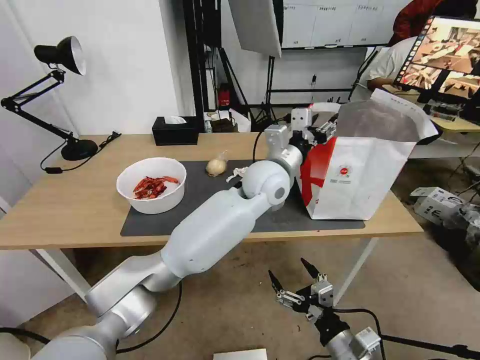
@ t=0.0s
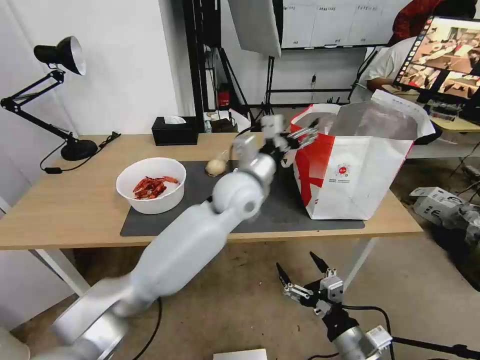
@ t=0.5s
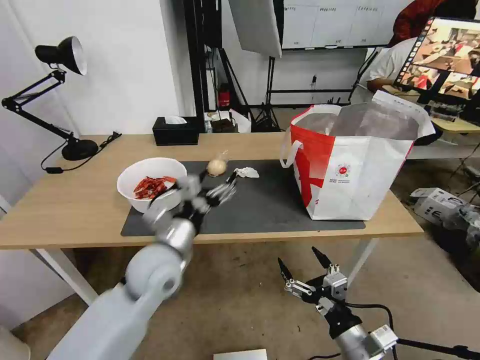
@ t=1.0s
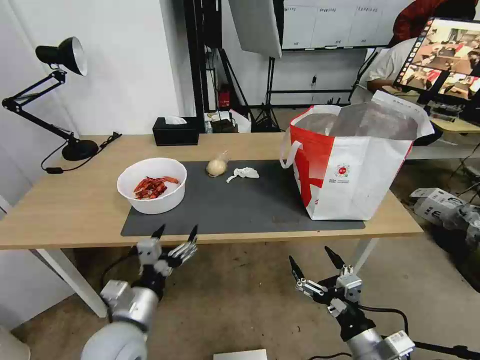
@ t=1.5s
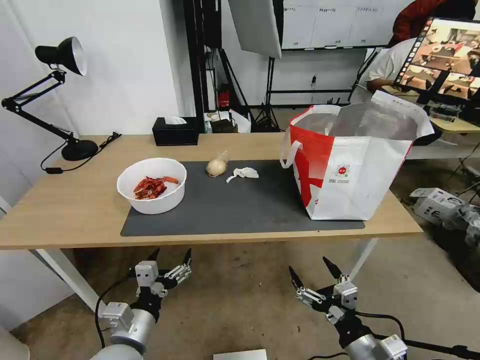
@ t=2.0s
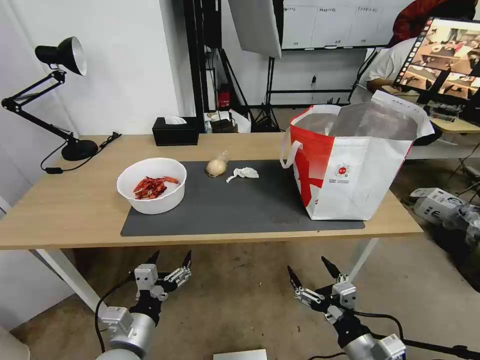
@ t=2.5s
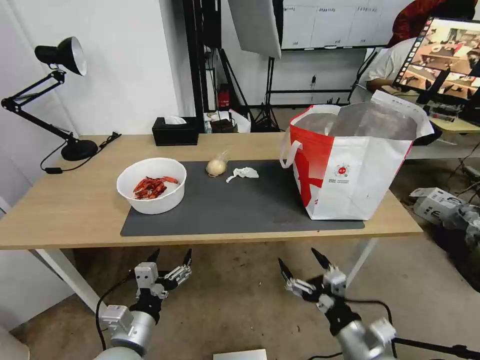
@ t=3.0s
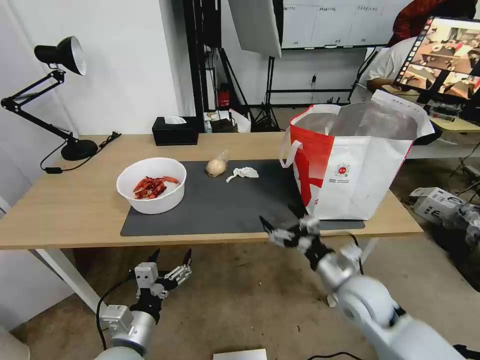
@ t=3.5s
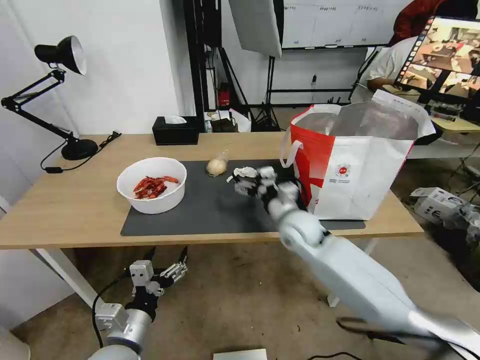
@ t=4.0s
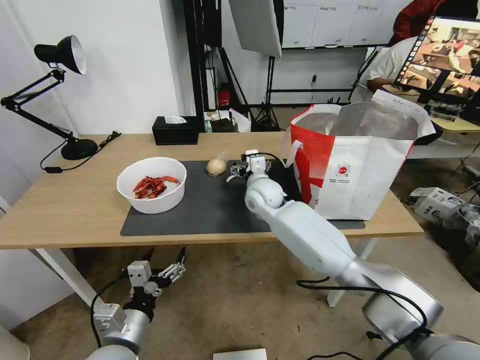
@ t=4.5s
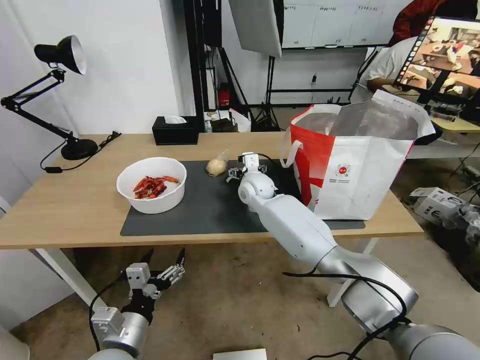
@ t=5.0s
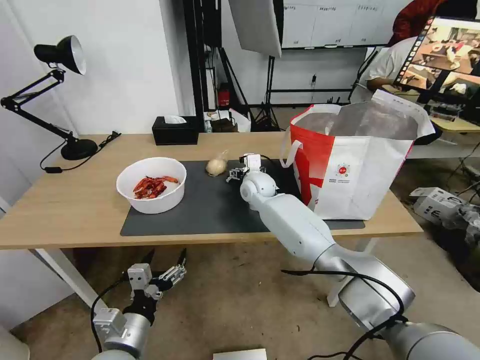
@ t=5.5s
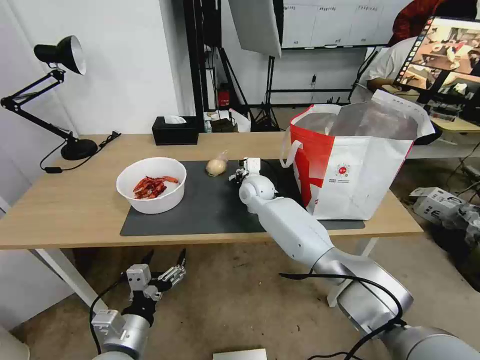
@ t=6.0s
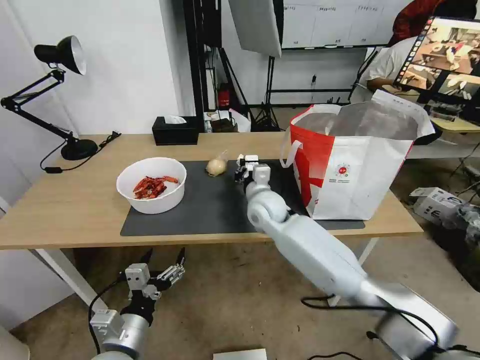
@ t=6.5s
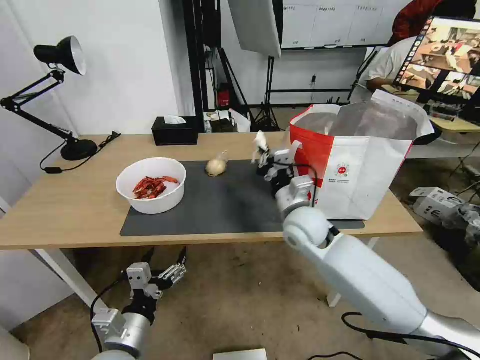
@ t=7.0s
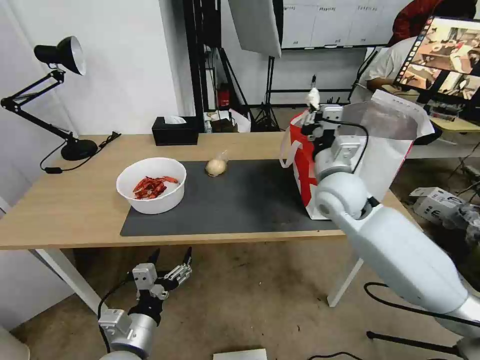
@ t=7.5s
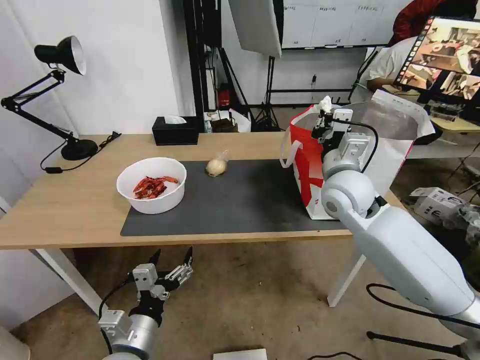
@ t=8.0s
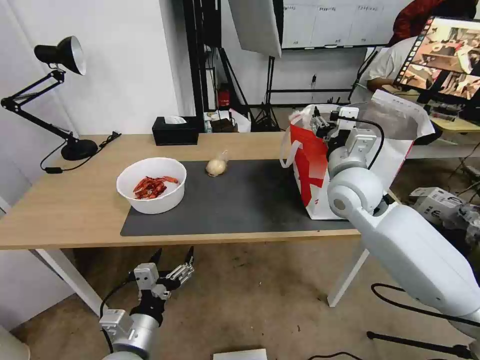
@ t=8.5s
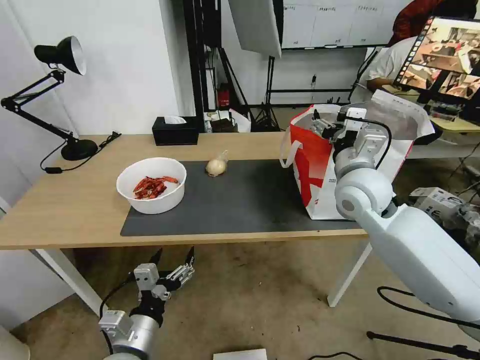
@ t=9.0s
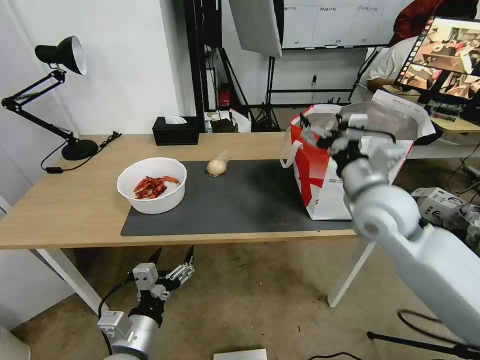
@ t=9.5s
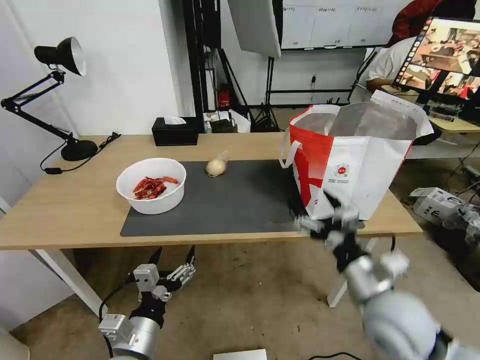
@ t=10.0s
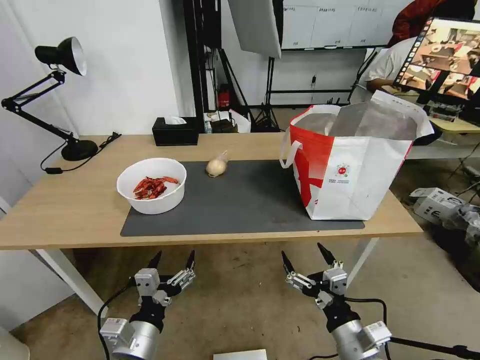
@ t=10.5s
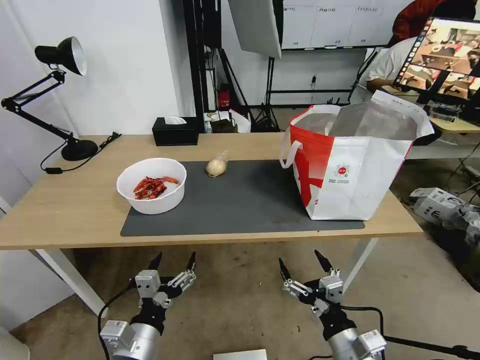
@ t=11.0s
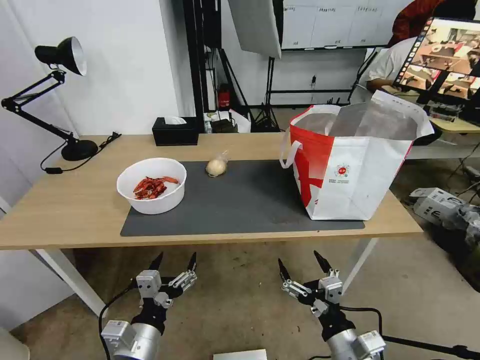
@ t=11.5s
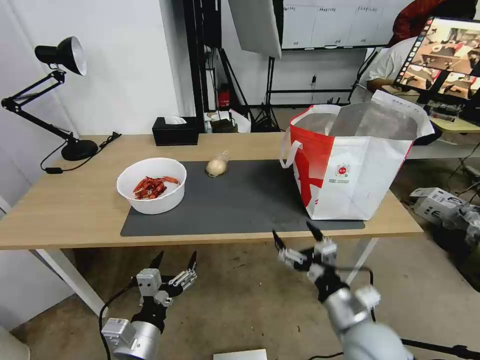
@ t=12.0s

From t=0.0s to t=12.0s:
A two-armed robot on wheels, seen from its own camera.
Task of the whole recording: Pick up the trash from the table and place it into the takeout bag.
From t=0.0s to t=2.0s: The left gripper heads backward, to the left and downward, covering approximately 40 cm, and opens.
From t=2.0s to t=4.0s: The right gripper is displaced forward and to the left by roughly 35 cm.
From t=4.0s to t=6.0s: The right gripper moves forward and to the left, approximately 15 cm, and closes up.
From t=6.0s to t=8.0s: The right gripper heads to the right, backward and upward, covering some 25 cm.
From t=8.0s to t=10.0s: The right gripper goes roughly 20 cm backward and downward, and opens its fingers.
From t=10.0s to t=12.0s: The right gripper goes about 10 cm downward.

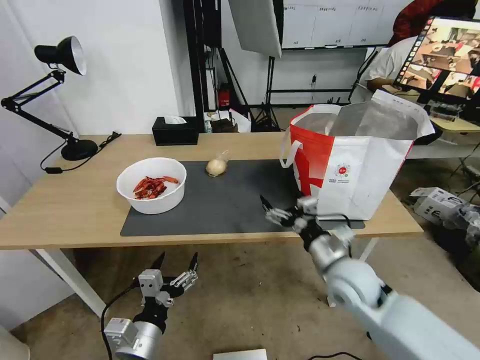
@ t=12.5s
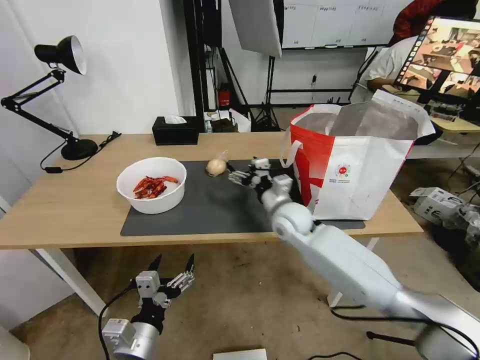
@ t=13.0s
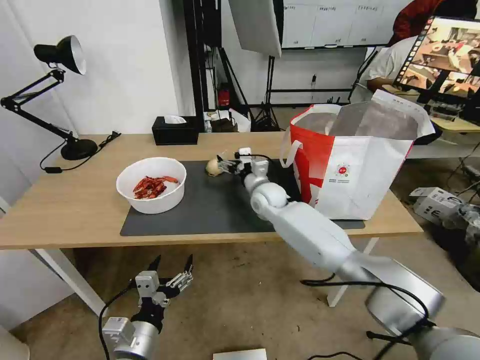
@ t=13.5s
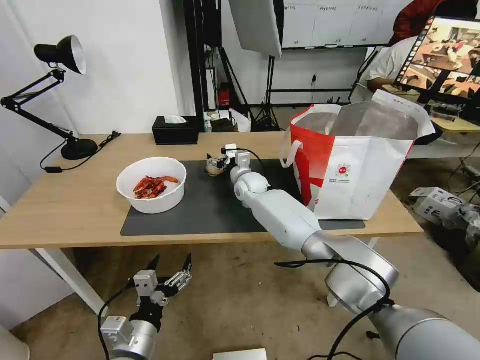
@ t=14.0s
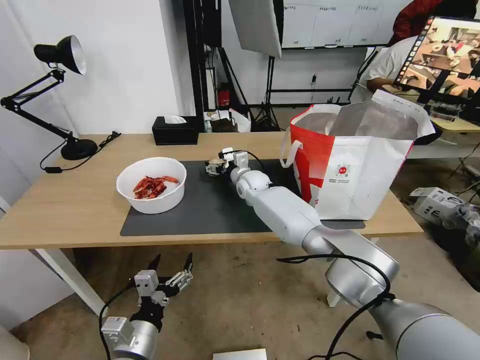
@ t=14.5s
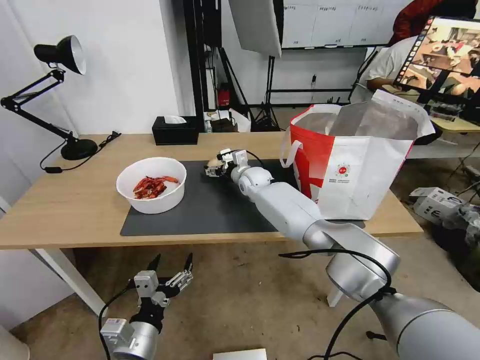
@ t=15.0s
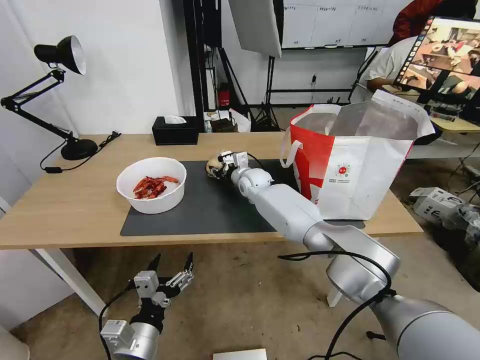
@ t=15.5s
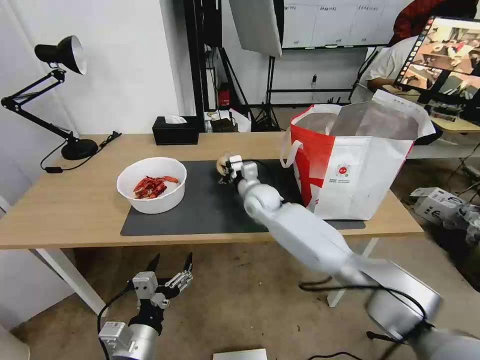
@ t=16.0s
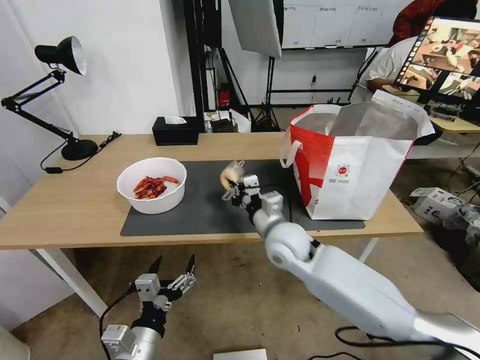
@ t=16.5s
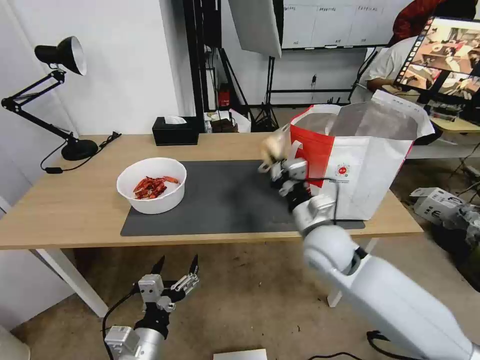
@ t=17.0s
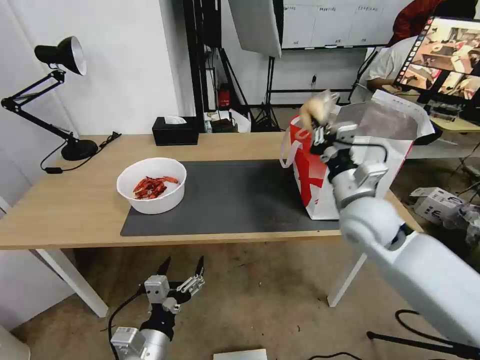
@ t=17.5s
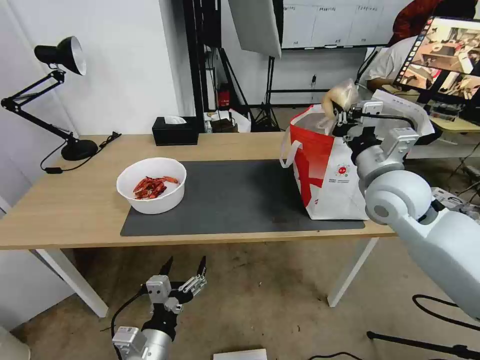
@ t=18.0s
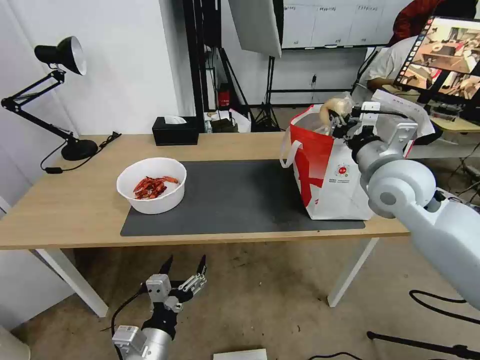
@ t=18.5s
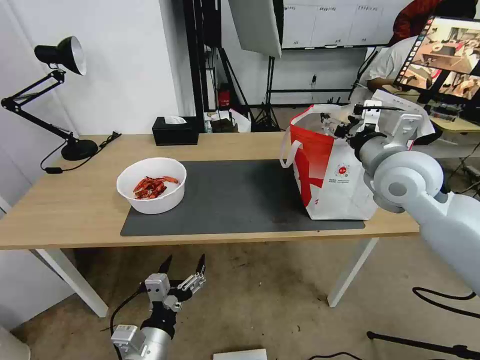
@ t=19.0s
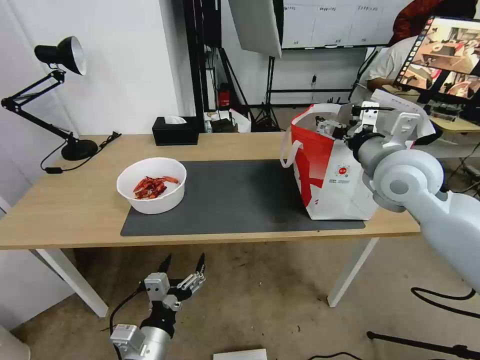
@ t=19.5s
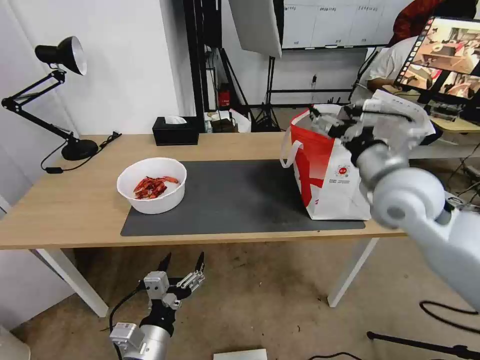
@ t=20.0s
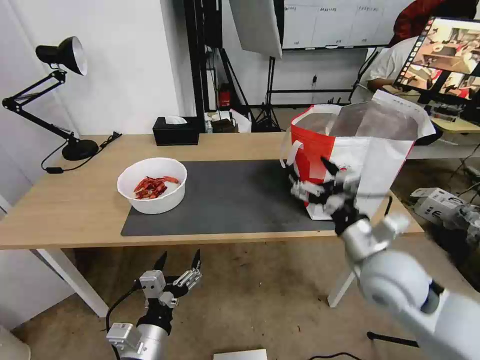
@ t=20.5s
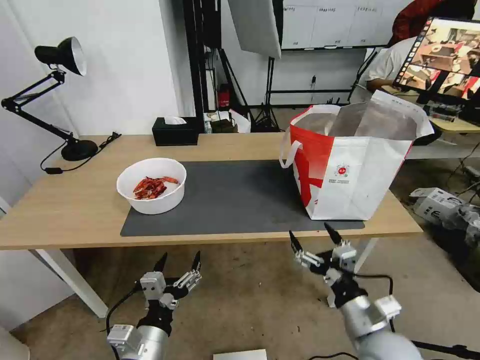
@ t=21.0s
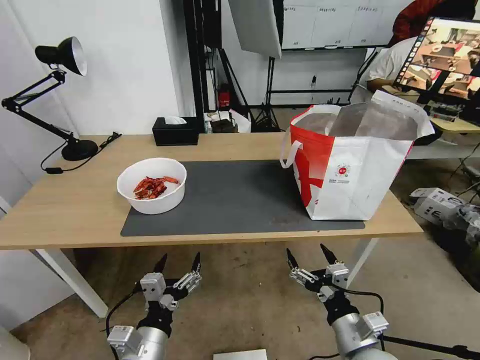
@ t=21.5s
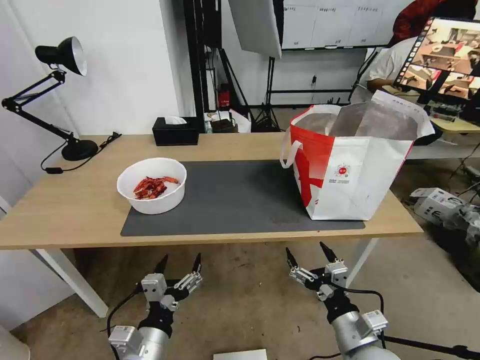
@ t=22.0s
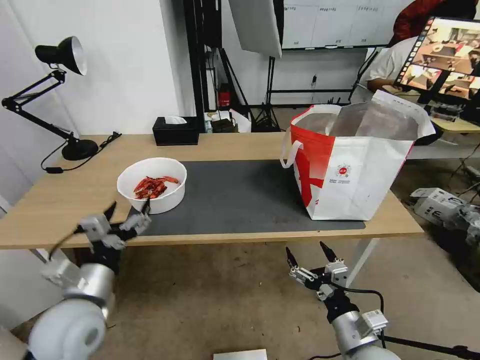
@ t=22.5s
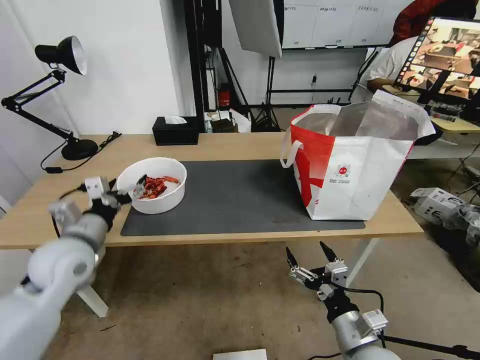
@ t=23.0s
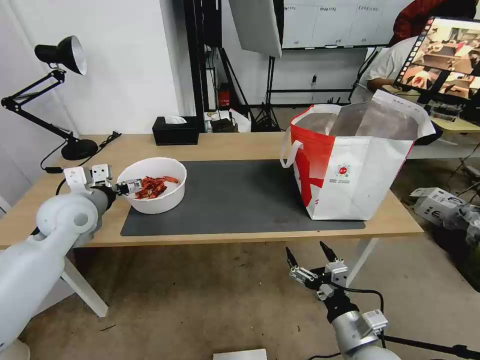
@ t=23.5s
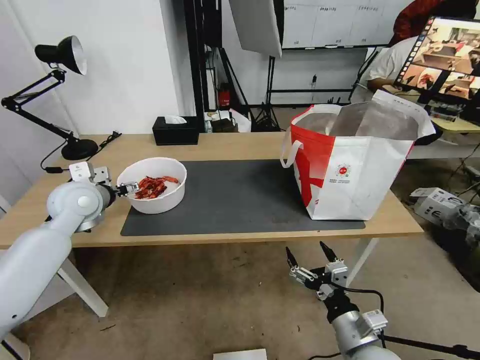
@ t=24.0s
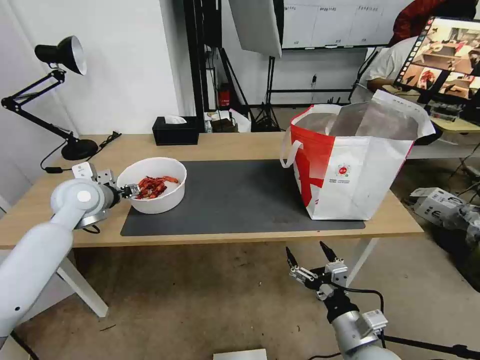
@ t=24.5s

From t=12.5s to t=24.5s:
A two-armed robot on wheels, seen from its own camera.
Task of the whole recording: Pick up the trash from the table and place it into the takeout bag.
From t=12.5s to t=14.5s: The right gripper heads forward and to the left, covering approximately 35 cm.
From t=14.5s to t=16.5s: The right gripper travels backward by approximately 20 cm, and closes its fingers.
From t=16.5s to t=18.5s: The right gripper goes approximately 25 cm to the right and upward.
From t=18.5s to t=20.5s: The right gripper heads backward and downward, covering roughly 15 cm, and opens its fingers.
From t=20.5s to t=22.5s: The left gripper goes some 15 cm to the left, forward and upward. Meanwhile the right gripper travels downward and backward by some 20 cm.
From t=22.5s to t=24.5s: The left gripper travels forward by roughly 25 cm.

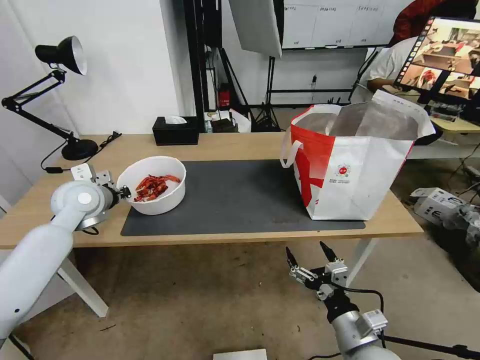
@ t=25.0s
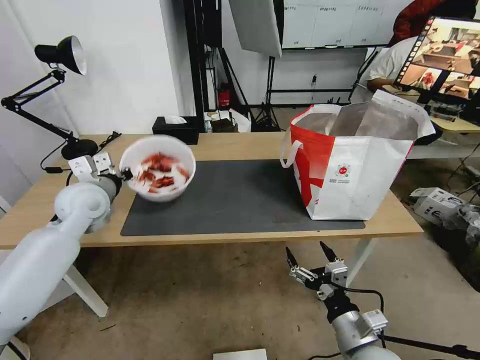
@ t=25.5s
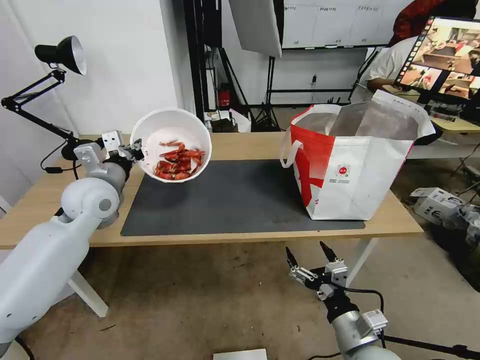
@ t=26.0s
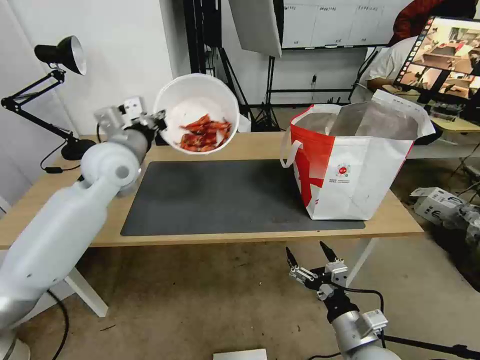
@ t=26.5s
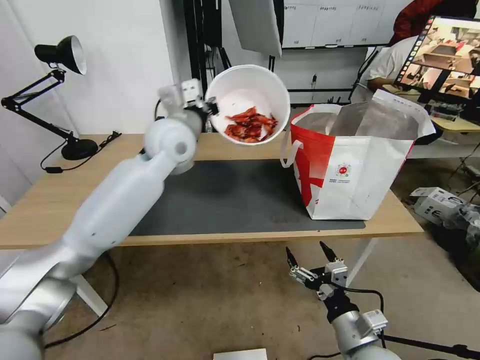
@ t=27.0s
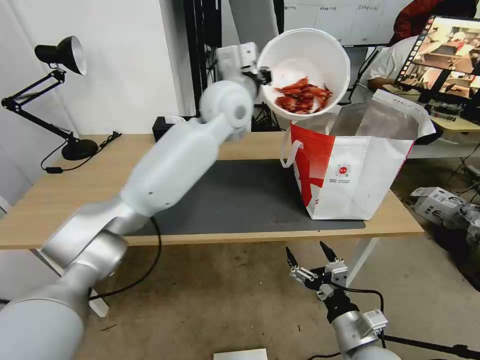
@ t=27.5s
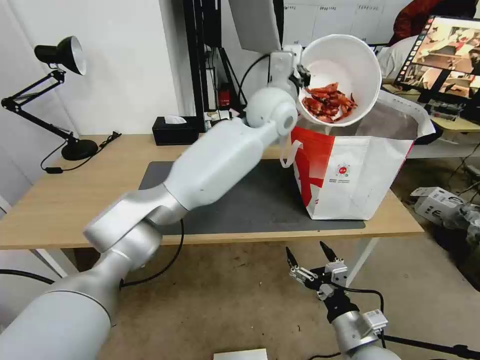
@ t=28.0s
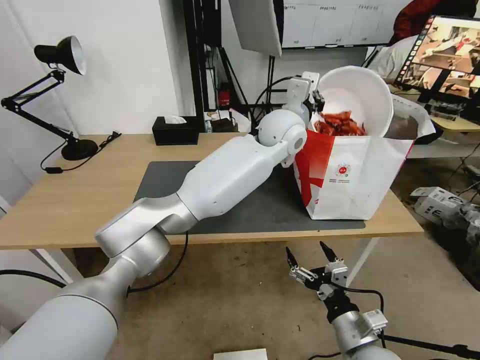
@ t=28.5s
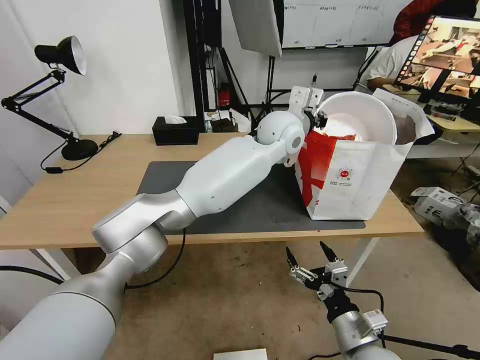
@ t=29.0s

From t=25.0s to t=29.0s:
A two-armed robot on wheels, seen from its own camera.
Task of the whole recording: Pick up the trash from the table and place it into the takeout bag.
From t=25.0s to t=27.0s: The left gripper travels to the right and upward by about 25 cm.
From t=27.0s to t=29.0s: The left gripper is displaced to the right by about 20 cm.
